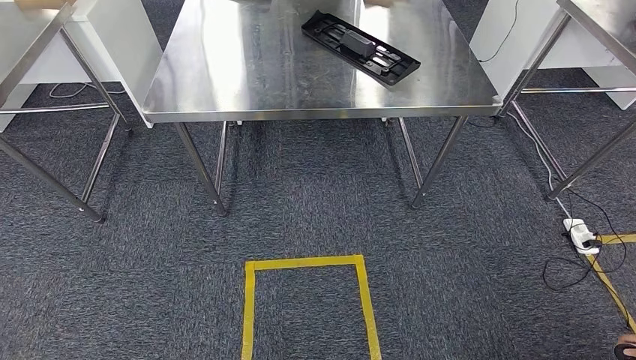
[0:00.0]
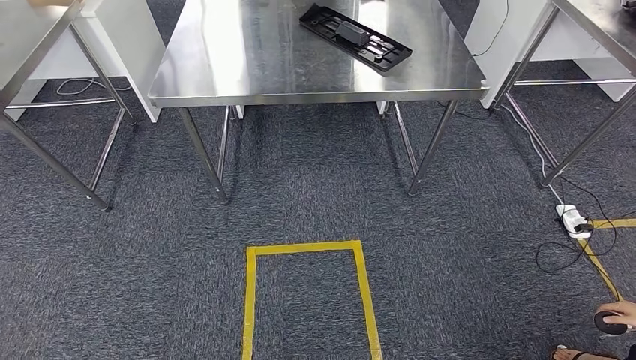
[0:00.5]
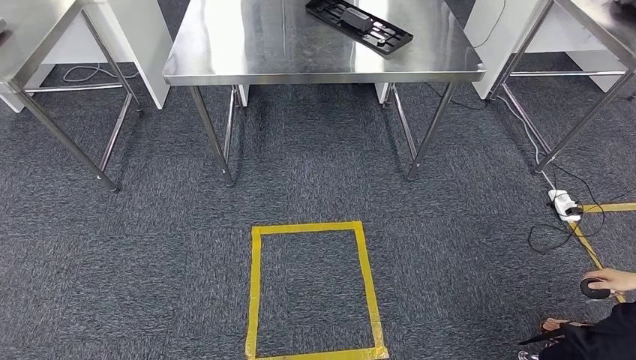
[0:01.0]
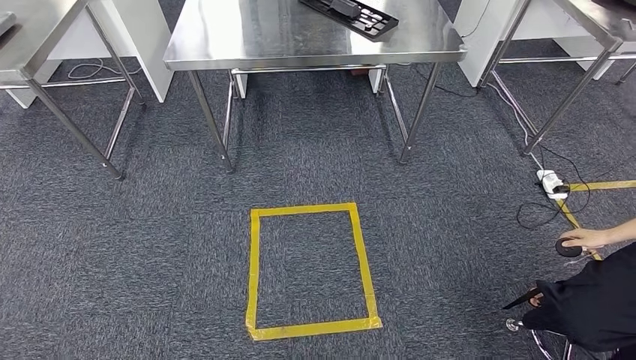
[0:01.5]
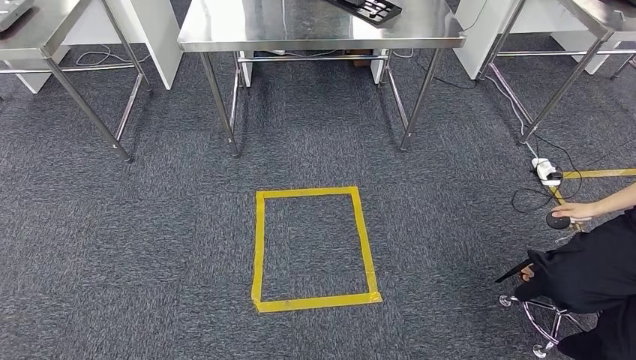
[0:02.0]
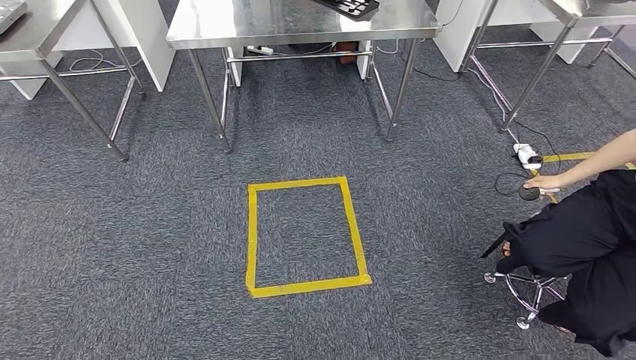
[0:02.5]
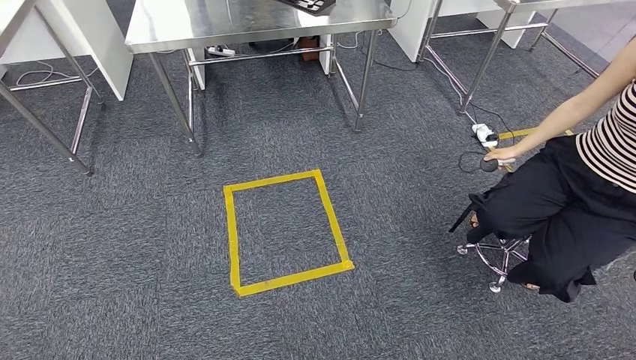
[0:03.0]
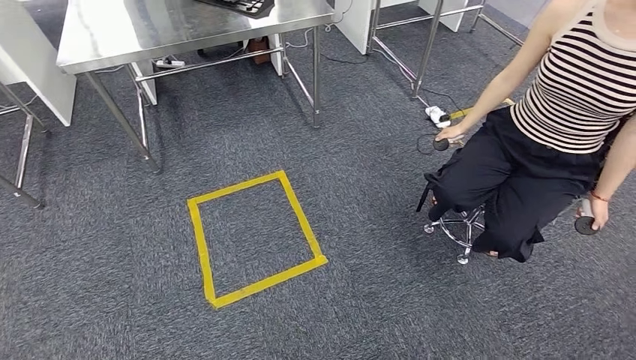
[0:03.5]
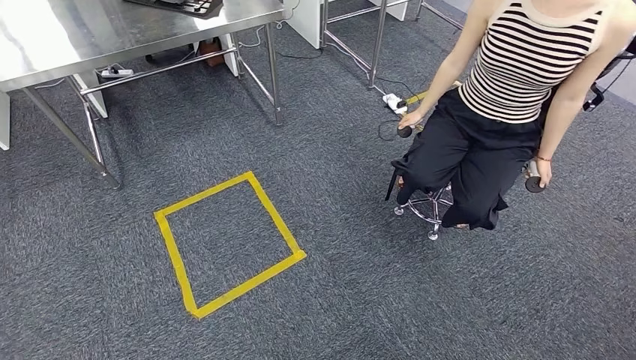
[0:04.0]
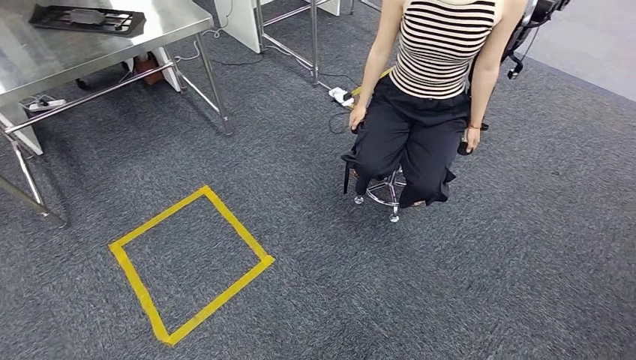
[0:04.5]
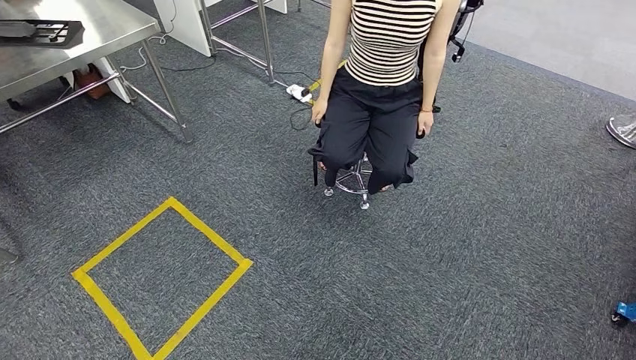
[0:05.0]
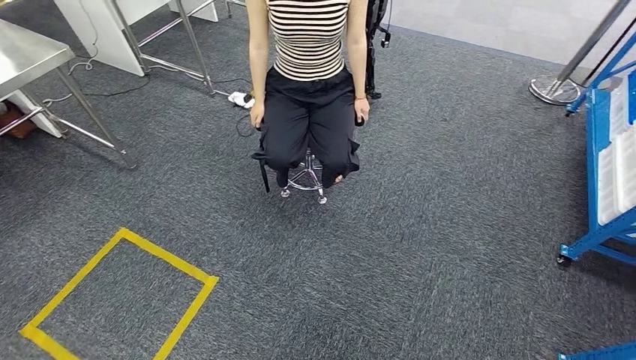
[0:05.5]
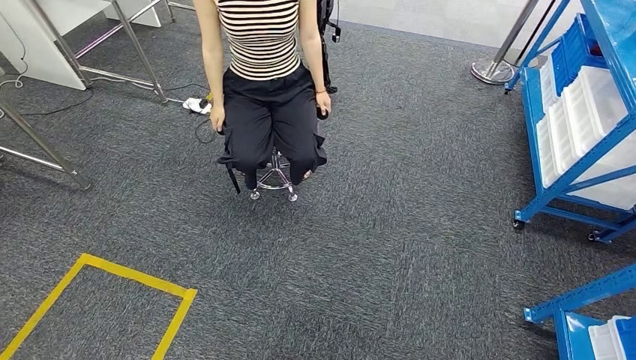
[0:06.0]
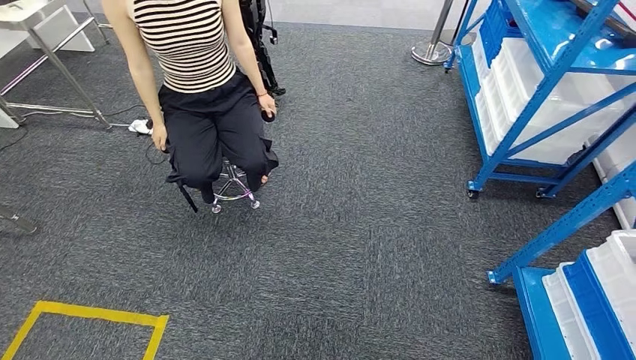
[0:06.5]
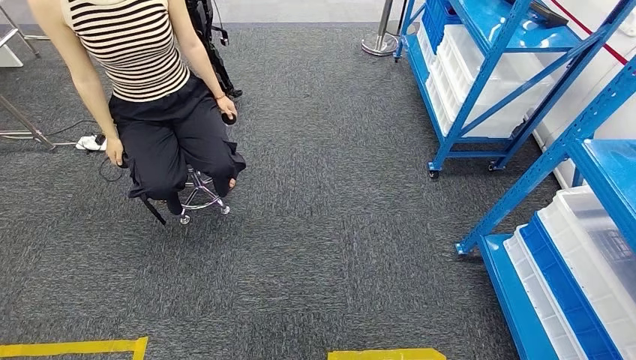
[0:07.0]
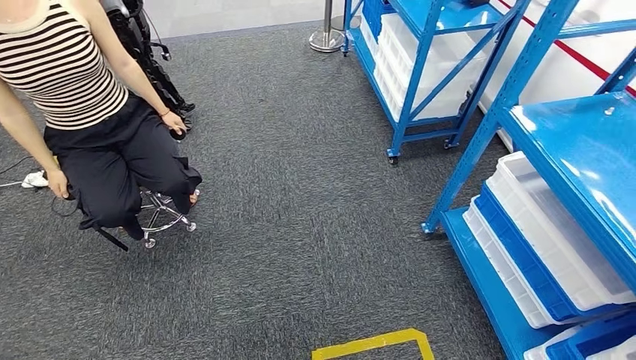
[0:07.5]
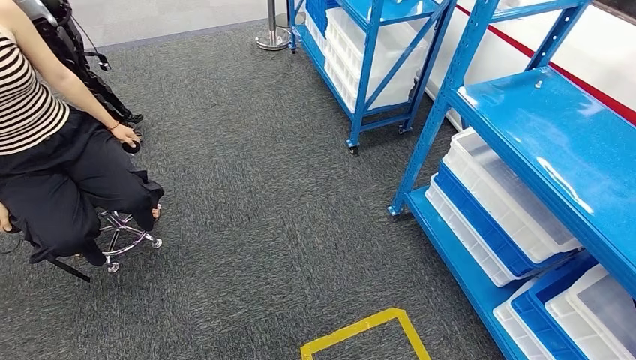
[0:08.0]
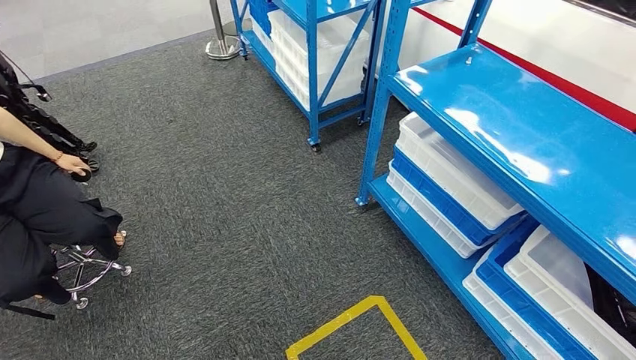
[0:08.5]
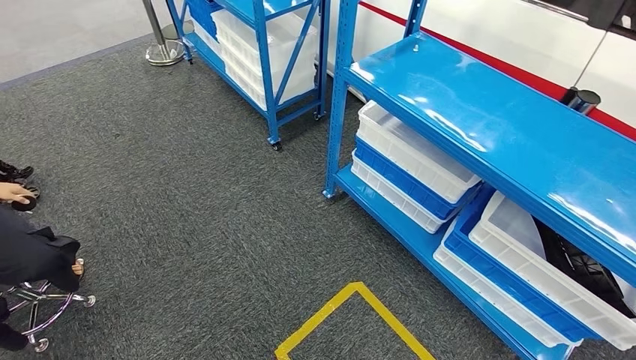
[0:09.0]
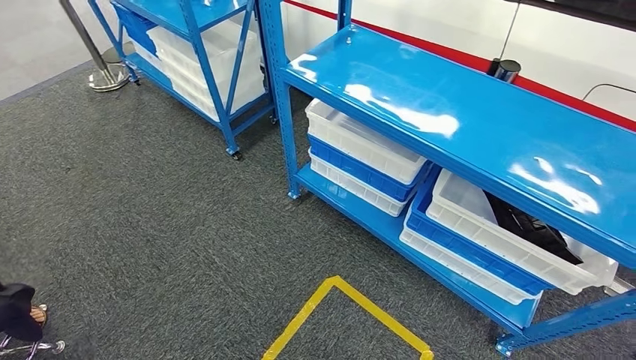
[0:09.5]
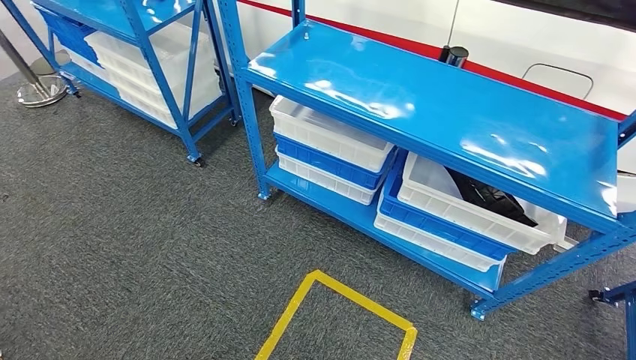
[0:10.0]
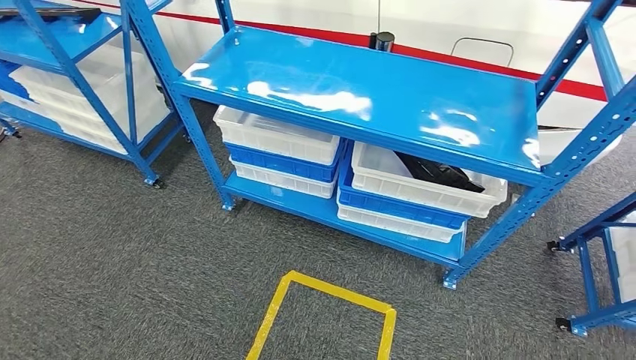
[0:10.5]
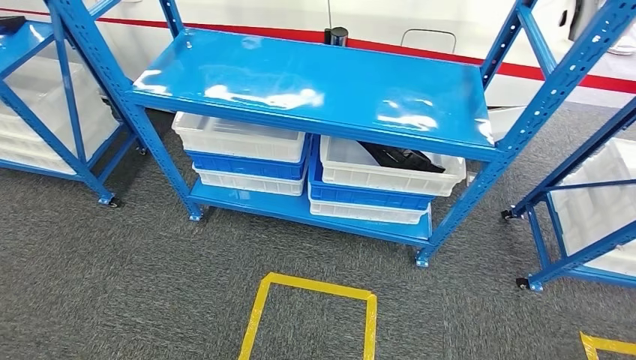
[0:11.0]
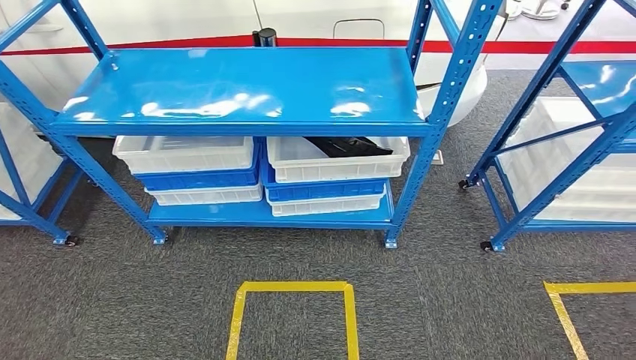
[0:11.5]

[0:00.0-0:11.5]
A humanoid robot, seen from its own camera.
Step, 0:00.0 to 0:11.5: Return to the initial position at the shelf.
